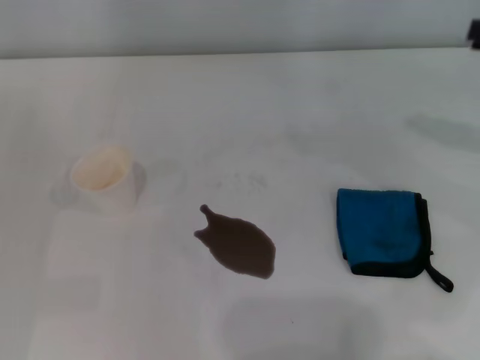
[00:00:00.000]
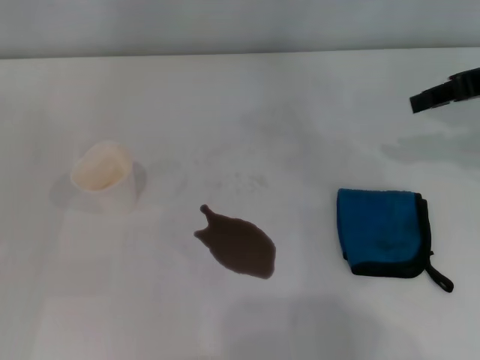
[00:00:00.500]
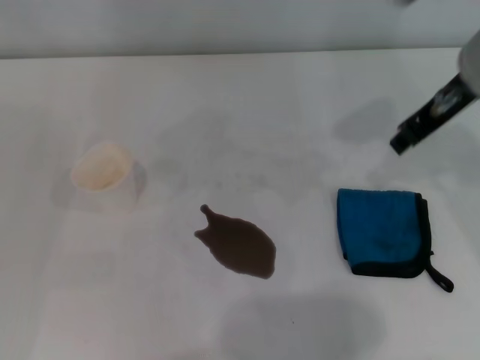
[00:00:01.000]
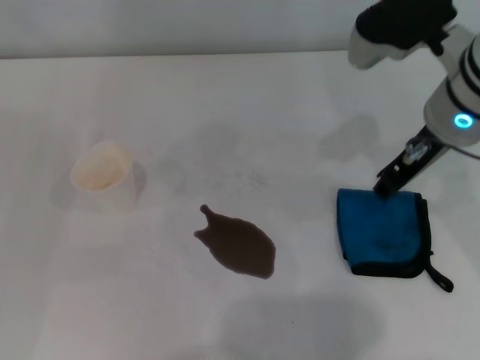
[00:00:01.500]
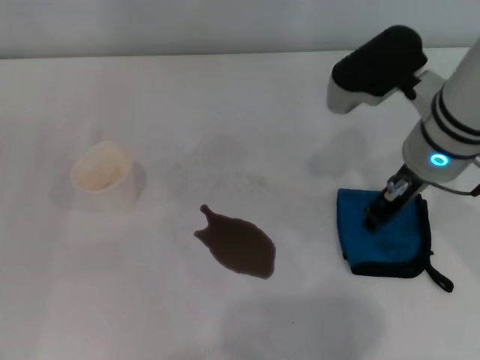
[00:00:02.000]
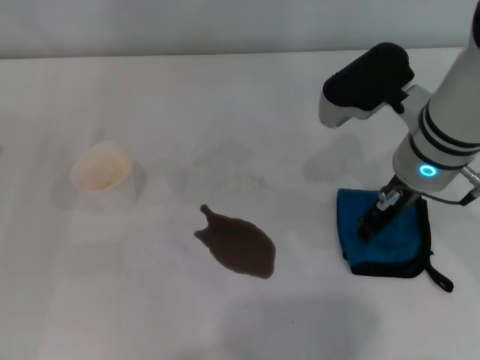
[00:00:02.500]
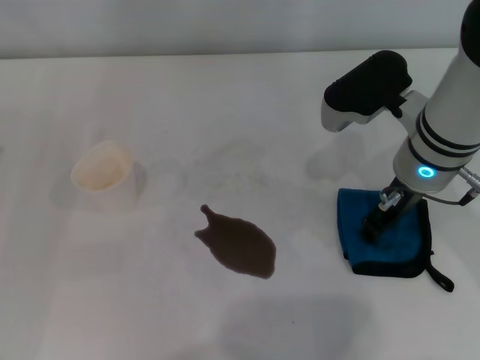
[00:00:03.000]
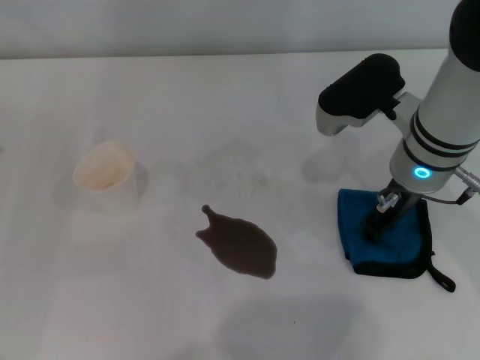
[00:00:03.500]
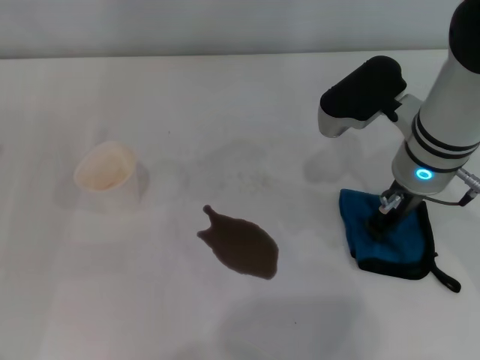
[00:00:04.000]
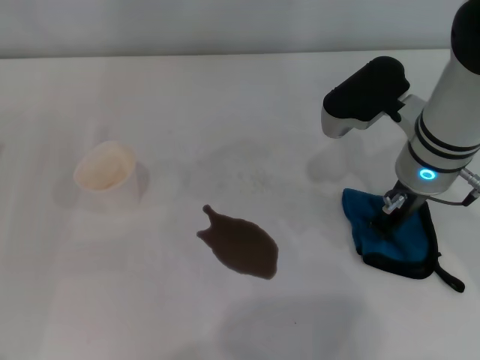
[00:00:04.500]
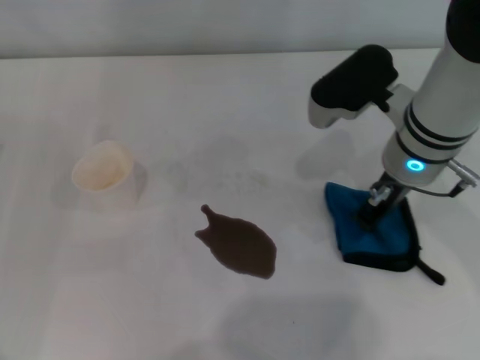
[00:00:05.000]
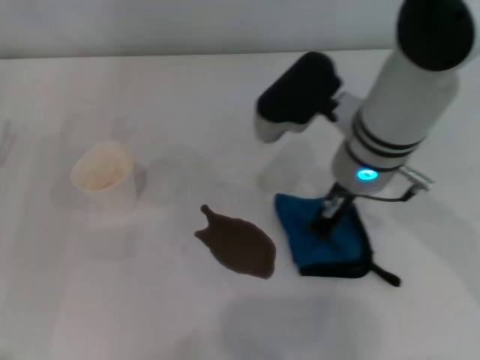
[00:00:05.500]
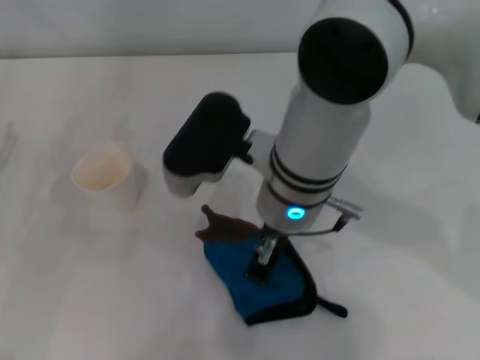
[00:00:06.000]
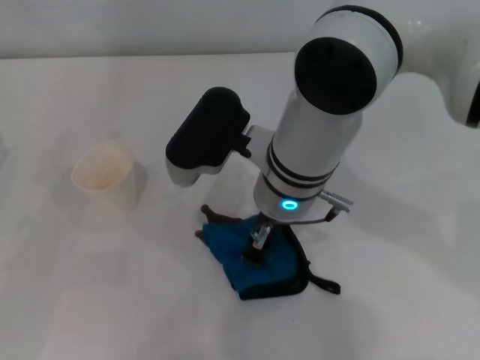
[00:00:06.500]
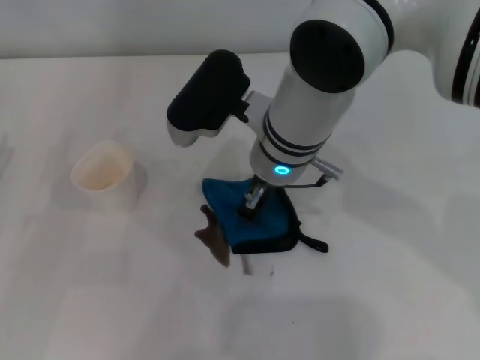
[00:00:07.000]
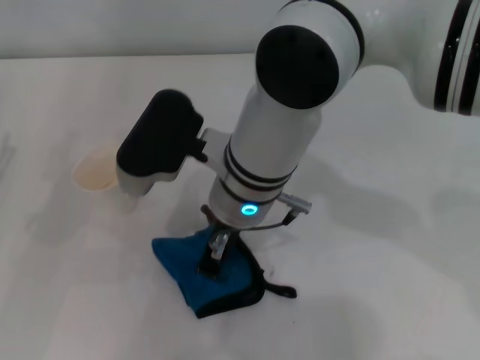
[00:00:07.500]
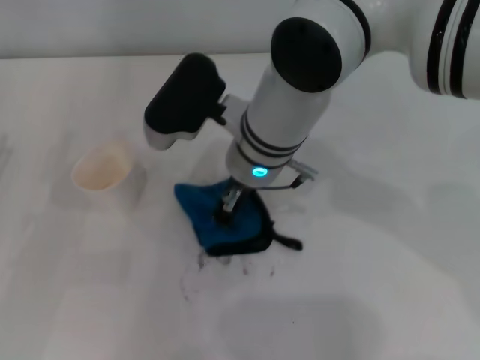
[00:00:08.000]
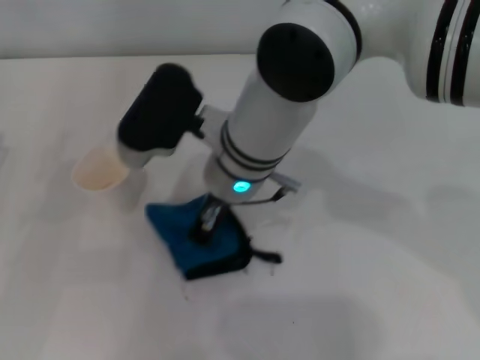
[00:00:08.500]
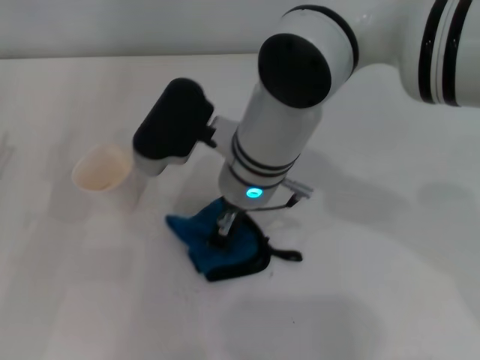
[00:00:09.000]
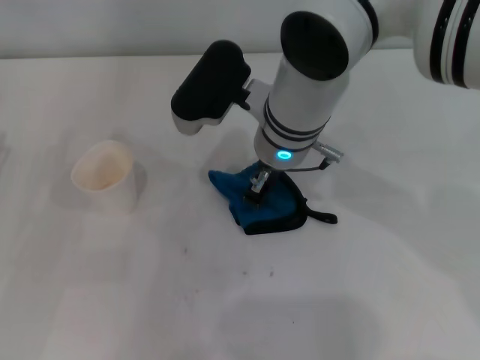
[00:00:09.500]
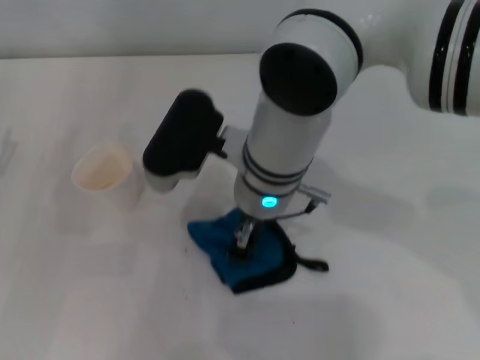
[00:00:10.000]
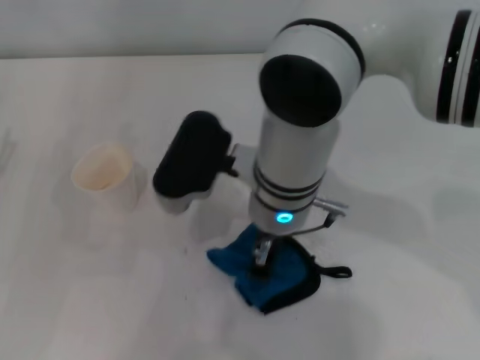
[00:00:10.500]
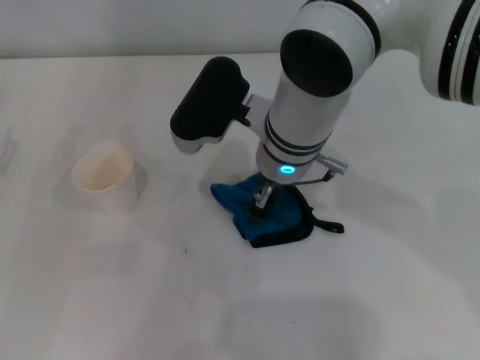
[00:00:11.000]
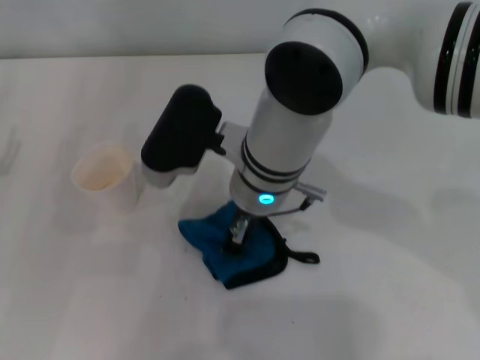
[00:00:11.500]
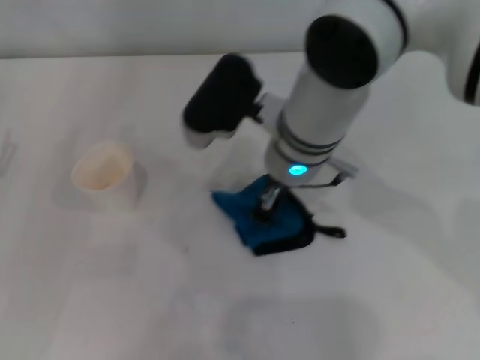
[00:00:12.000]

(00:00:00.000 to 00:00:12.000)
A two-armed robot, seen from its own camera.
Step, 00:00:00.000 - 00:00:04.500: Grasp the rag with the right gripper.
00:00:00.000 - 00:00:02.000: The right gripper travels to the left by roughly 20 cm.
00:00:02.000 - 00:00:04.000: The right gripper closes its fingers.
00:00:04.000 - 00:00:06.000: The right gripper heads to the left, covering roughly 15 cm, and closes.
00:00:06.000 - 00:00:08.000: The right gripper heads forward, covering some 5 cm.
00:00:08.000 - 00:00:10.000: The grippers stay close to where they were, moving slightly.

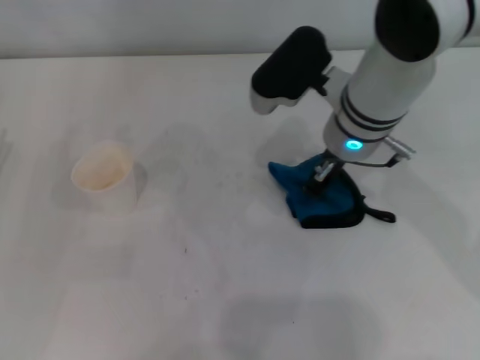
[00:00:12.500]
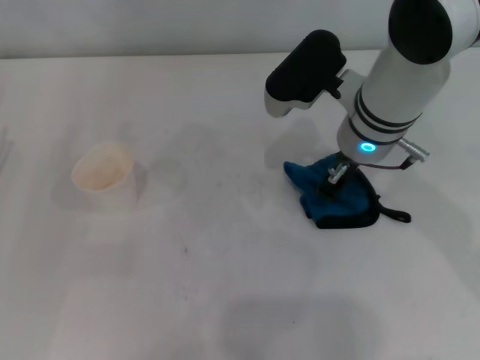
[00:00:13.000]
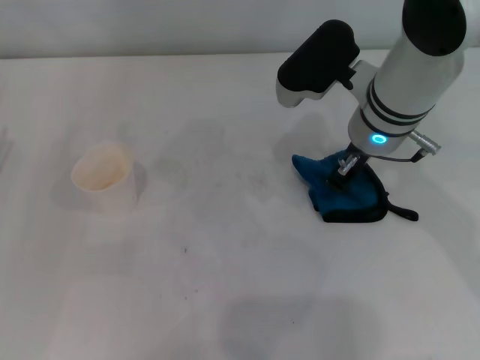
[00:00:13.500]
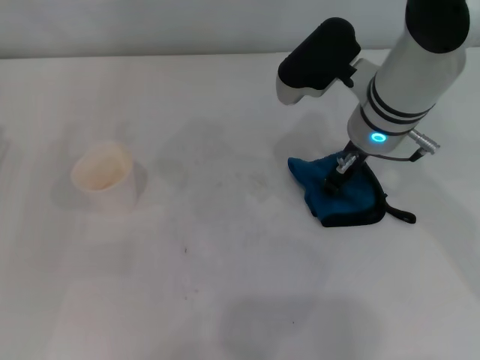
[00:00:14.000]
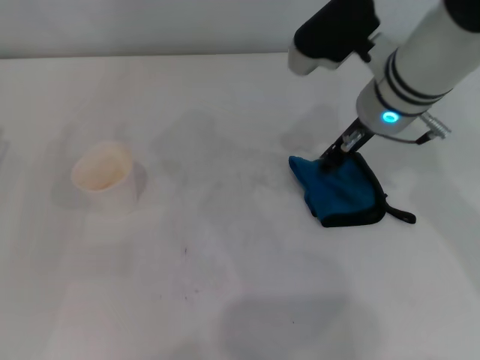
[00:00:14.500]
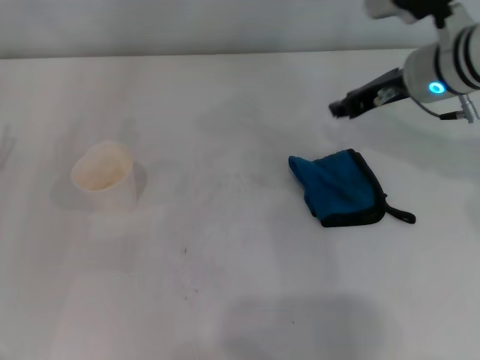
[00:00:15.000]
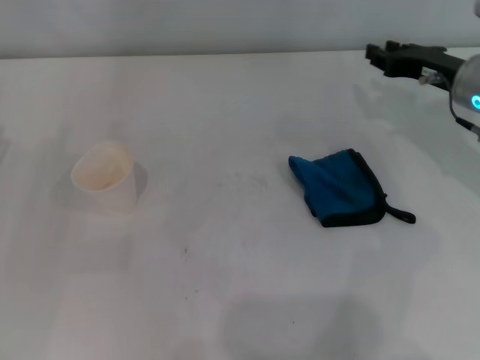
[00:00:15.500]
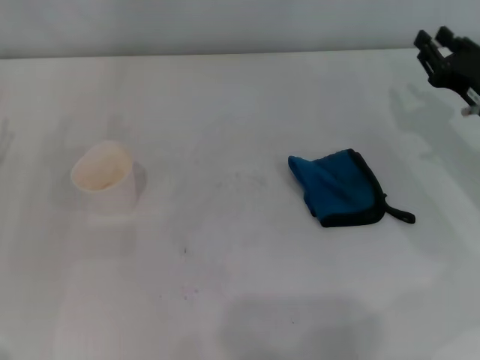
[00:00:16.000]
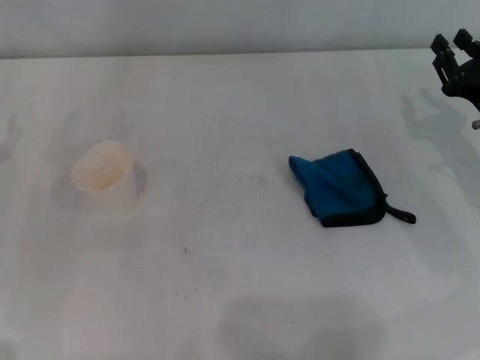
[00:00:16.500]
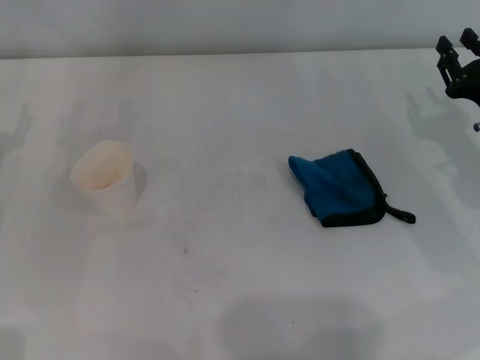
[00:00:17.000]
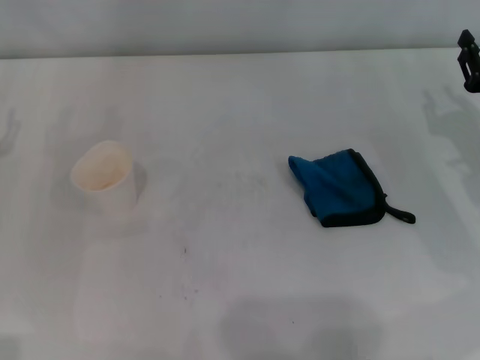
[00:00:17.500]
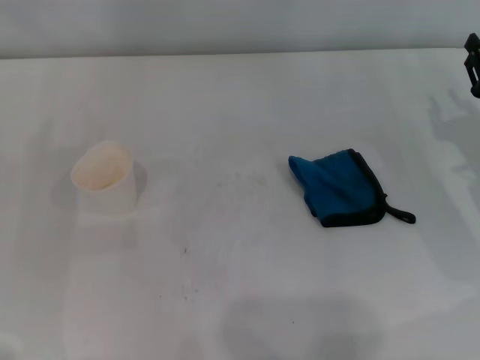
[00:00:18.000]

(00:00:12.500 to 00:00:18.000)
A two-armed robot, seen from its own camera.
Step, 00:00:13.500 - 00:00:14.000: Place the rag on the table with the right gripper.
00:00:12.500 - 00:00:14.500: The right gripper opens.
00:00:14.500 - 00:00:16.000: The right gripper goes roughly 20 cm to the right, downward and backward.
00:00:16.000 - 00:00:18.000: There are only small adjustments of the grippers.

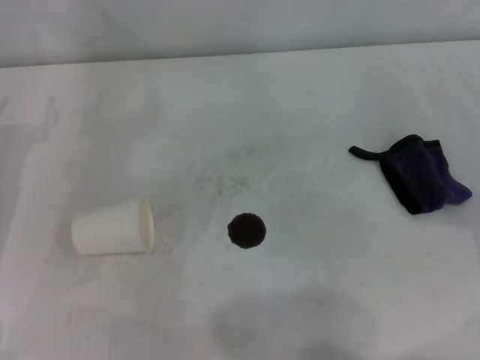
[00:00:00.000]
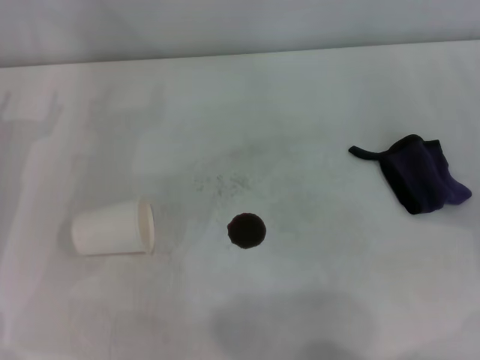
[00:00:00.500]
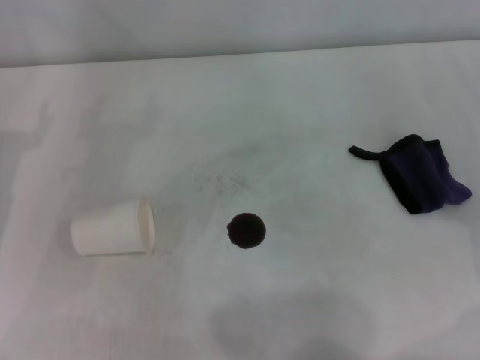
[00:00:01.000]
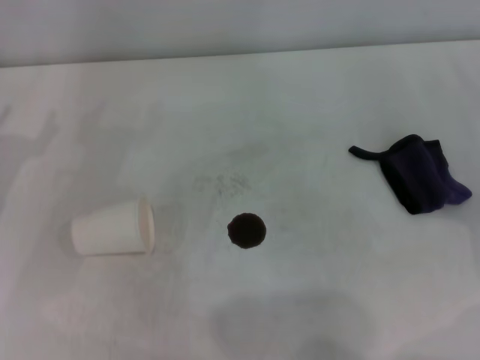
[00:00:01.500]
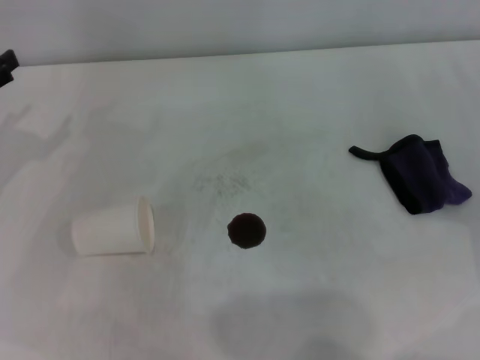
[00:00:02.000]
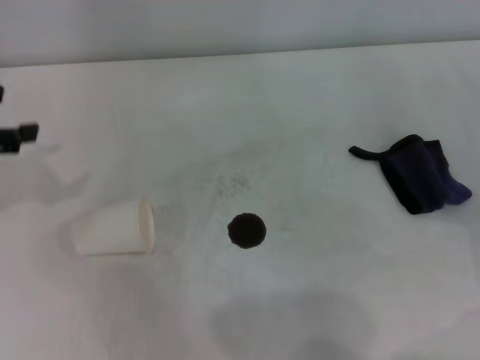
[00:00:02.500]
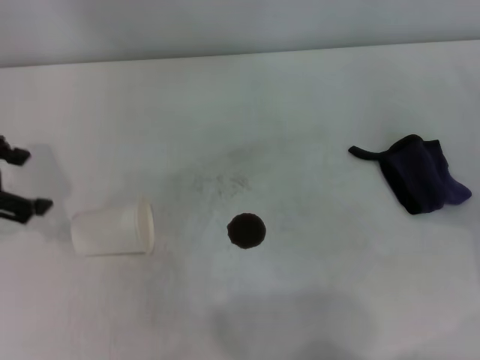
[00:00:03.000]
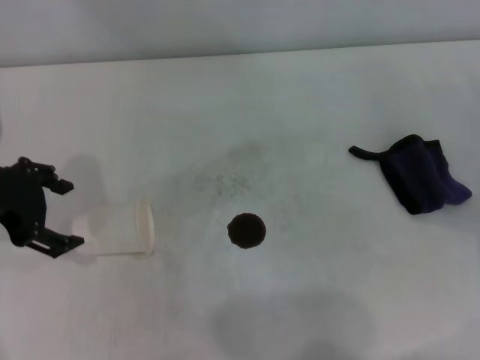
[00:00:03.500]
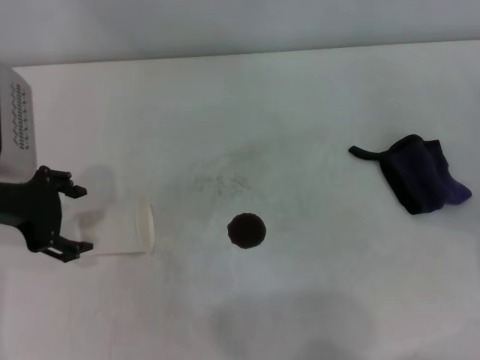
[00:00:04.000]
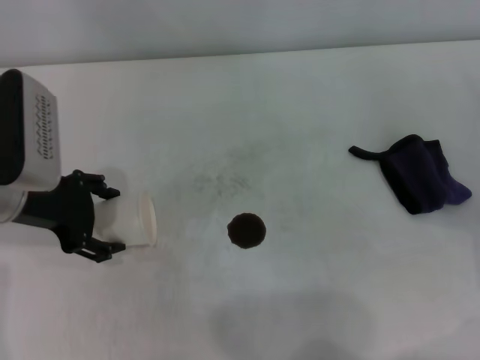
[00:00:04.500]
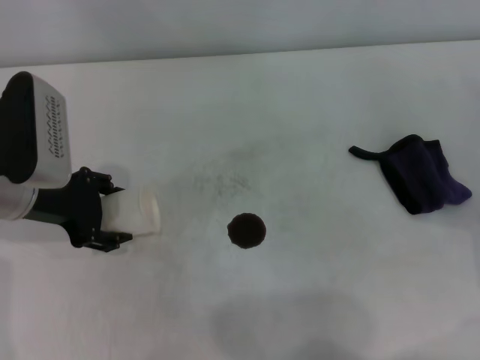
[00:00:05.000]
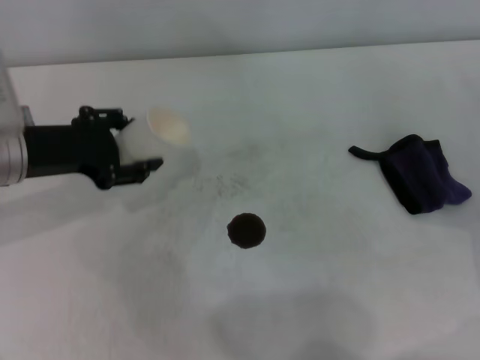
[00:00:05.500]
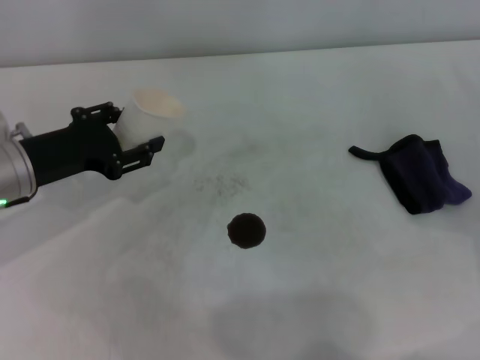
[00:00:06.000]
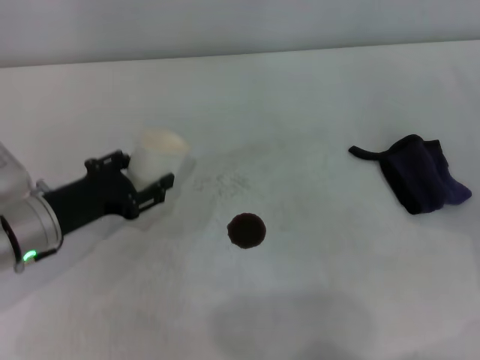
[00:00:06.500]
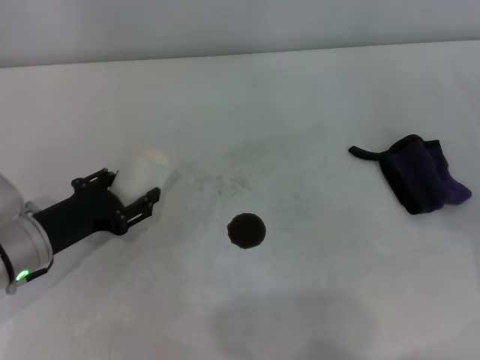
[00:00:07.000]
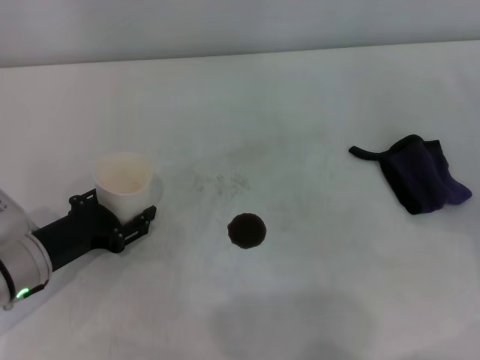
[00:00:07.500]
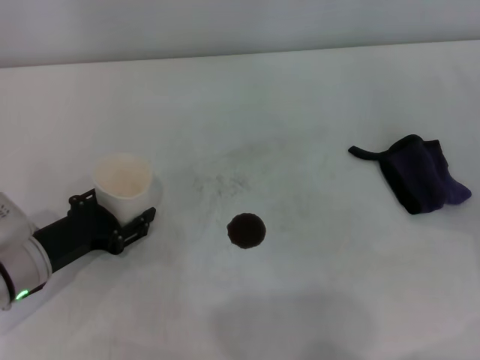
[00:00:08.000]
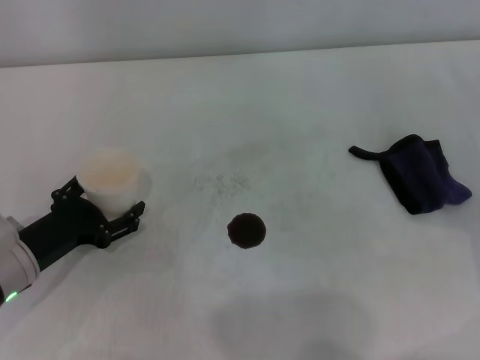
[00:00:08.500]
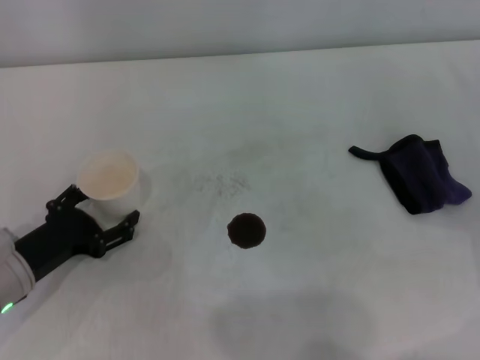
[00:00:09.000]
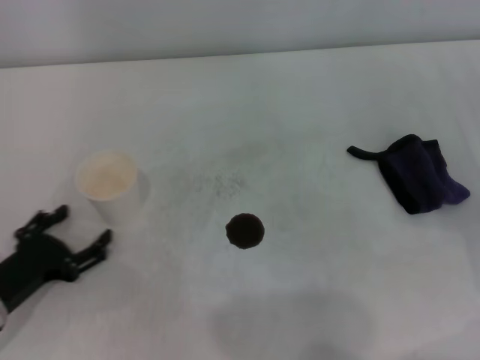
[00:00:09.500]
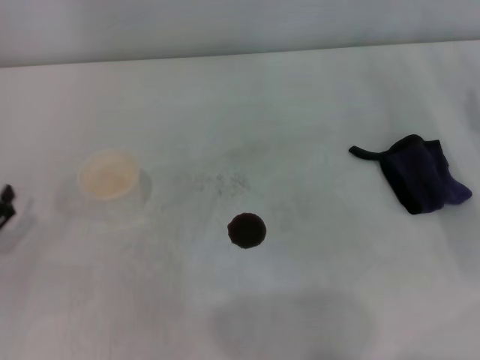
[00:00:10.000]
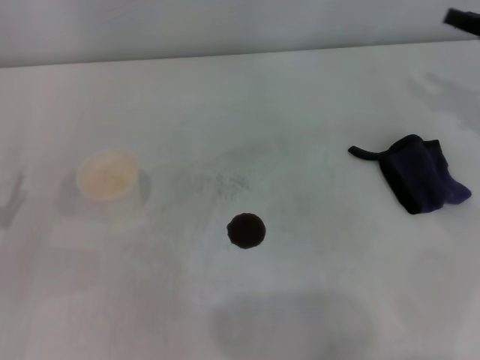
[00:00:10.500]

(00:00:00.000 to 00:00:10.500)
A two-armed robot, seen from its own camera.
Step, 00:00:00.000 - 00:00:04.500: Grasp the paper cup with the left gripper.
Step, 00:00:05.000 - 00:00:08.500: Stand the paper cup upright with the left gripper.
00:00:02.000 - 00:00:04.000: The left gripper heads to the right, covering roughly 10 cm.
00:00:04.000 - 00:00:06.500: The left gripper heads downward, covering about 10 cm, and closes its fingers.
00:00:06.500 - 00:00:08.500: The left gripper moves some 5 cm, and opens up.
00:00:08.500 - 00:00:10.500: The left gripper goes roughly 10 cm to the left.
